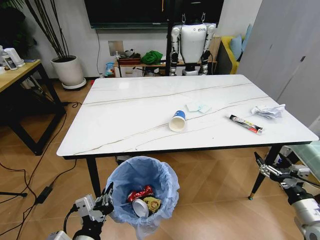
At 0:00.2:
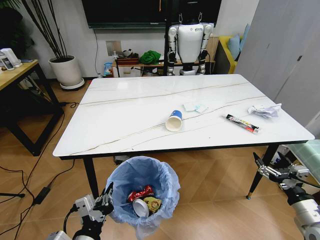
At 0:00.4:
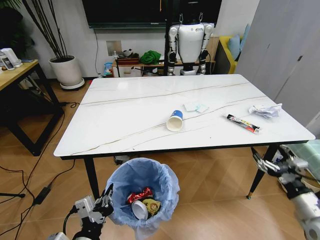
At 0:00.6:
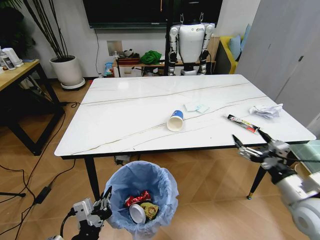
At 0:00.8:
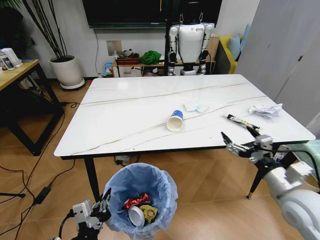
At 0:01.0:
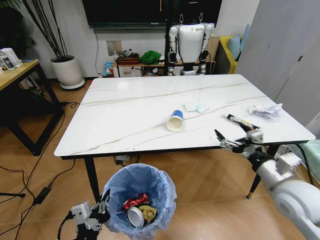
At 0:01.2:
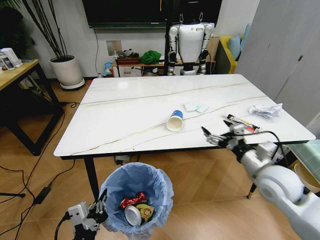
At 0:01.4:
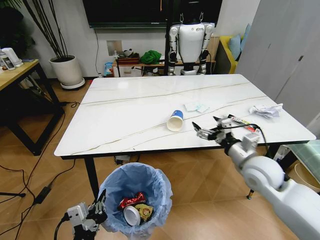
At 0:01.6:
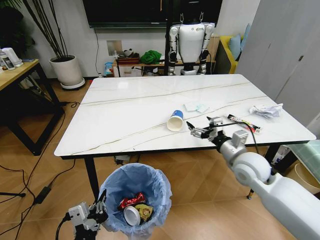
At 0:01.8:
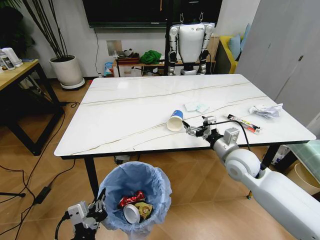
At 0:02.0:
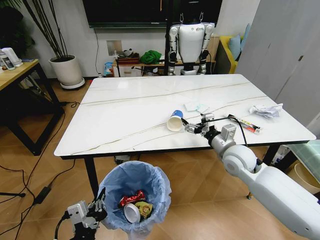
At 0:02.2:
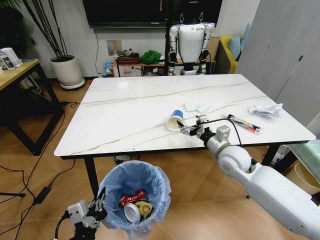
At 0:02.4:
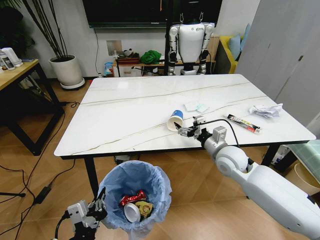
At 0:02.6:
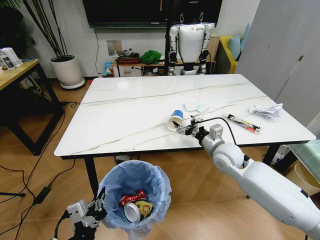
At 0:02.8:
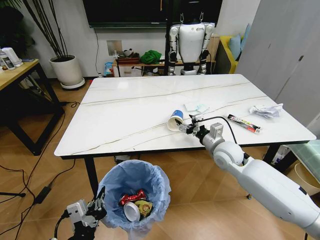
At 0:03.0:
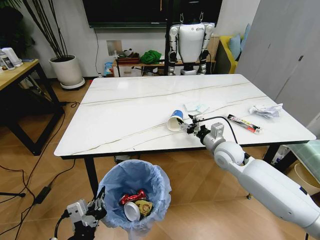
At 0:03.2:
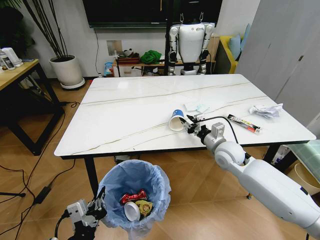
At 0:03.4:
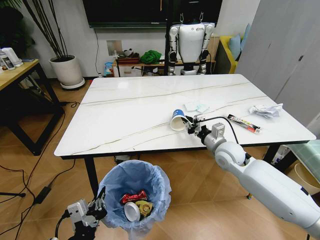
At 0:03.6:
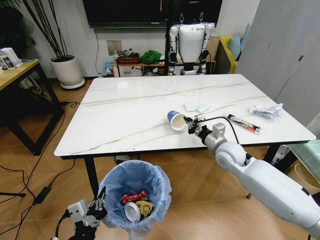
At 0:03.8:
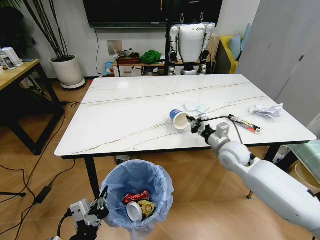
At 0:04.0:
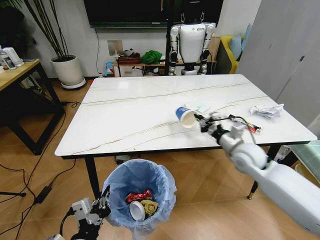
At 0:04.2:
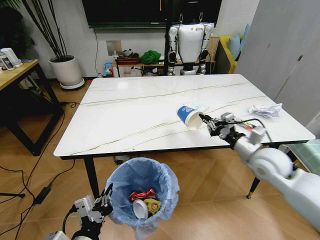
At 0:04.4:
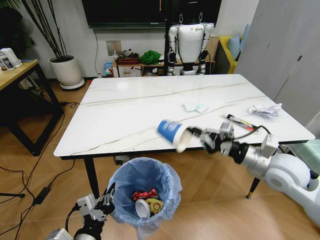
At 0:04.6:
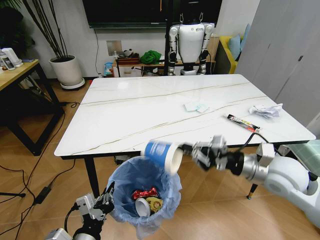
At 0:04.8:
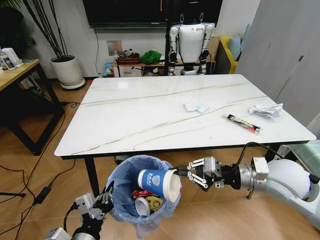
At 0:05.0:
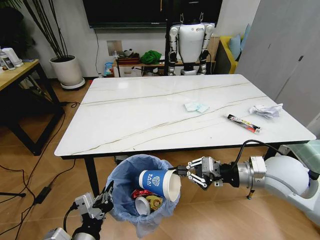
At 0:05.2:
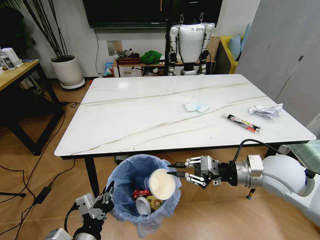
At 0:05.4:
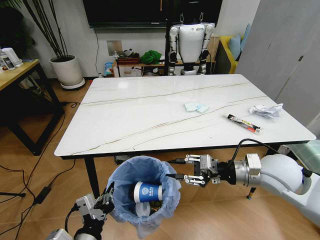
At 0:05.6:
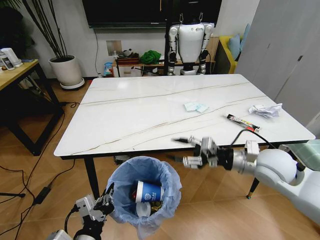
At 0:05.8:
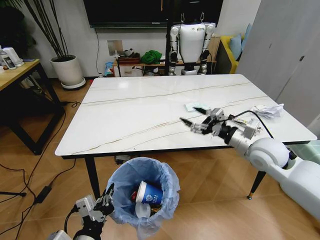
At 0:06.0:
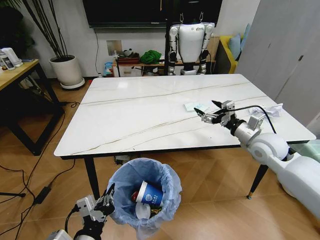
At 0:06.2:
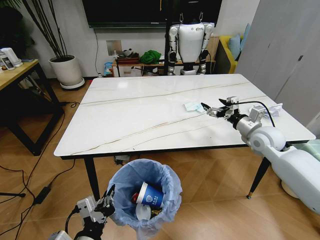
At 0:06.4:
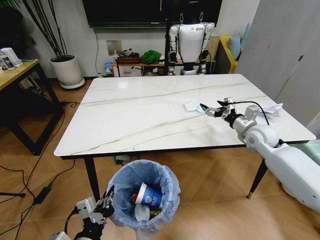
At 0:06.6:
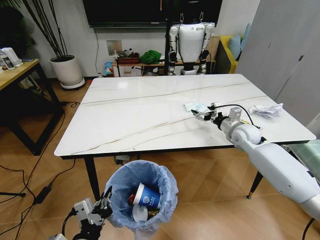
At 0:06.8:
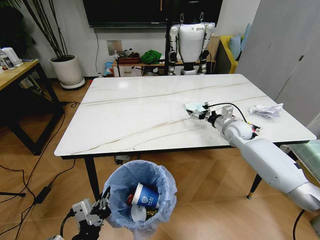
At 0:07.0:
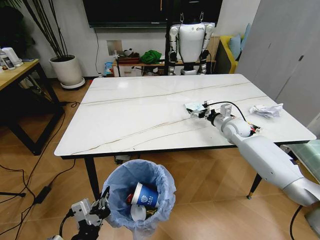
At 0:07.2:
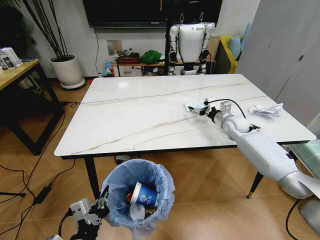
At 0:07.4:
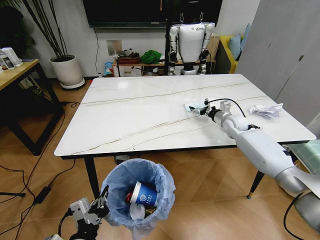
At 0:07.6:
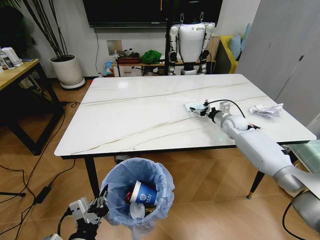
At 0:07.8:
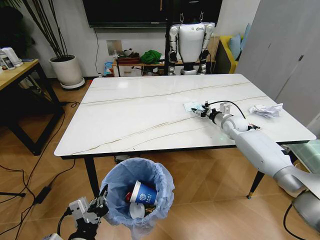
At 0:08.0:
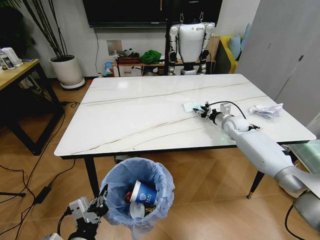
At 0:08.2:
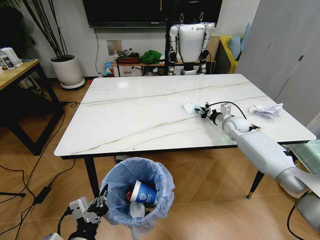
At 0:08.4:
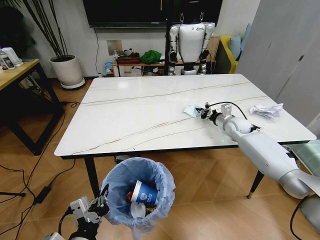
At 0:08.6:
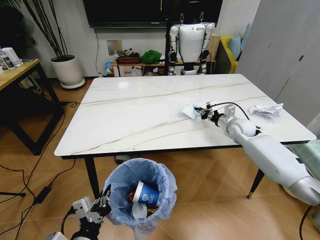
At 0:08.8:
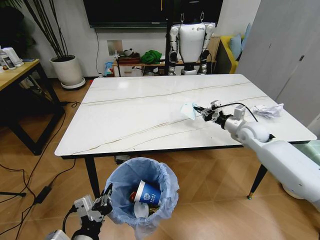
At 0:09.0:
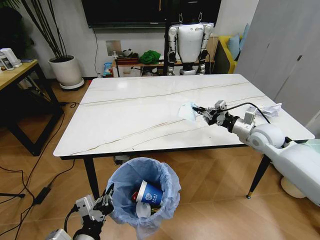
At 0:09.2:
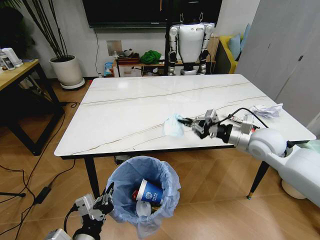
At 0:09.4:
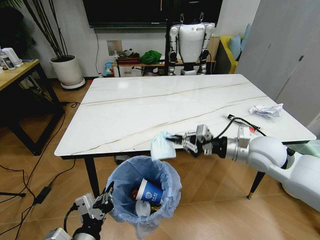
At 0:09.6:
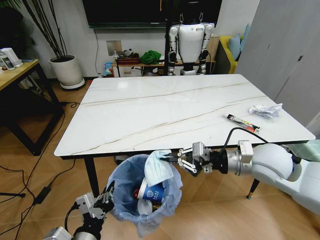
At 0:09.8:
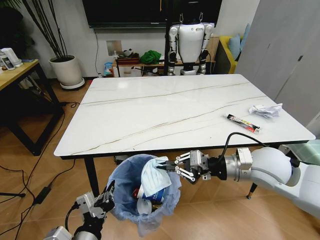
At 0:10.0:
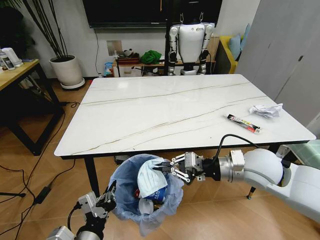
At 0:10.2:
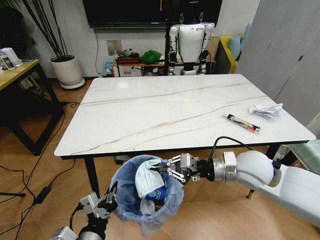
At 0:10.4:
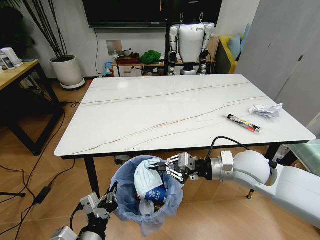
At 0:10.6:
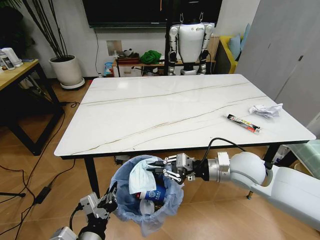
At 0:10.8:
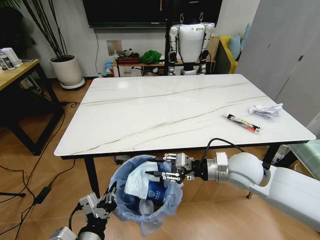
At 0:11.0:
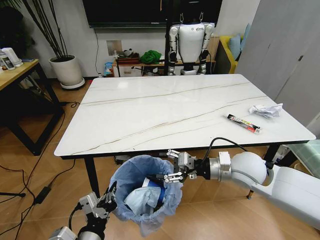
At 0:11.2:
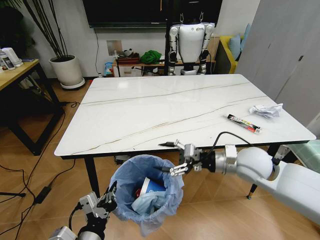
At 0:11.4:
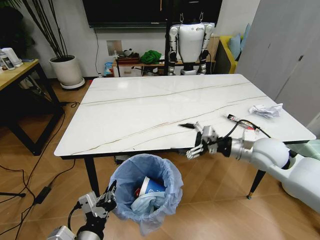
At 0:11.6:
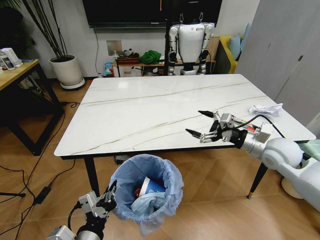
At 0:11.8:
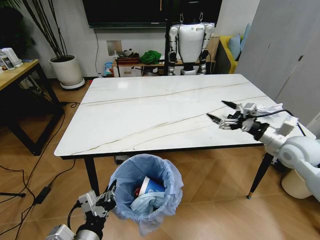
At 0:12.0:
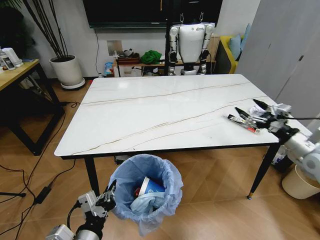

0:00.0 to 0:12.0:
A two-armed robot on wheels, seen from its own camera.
Task of the whole recording: Pick up the trash bin and place the trash from the table into it.
0:00.0 to 0:01.6: The right gripper goes approximately 25 cm forward, to the left and upward.
0:01.6 to 0:03.0: The right gripper moves forward, approximately 5 cm, and closes.
0:03.0 to 0:04.4: The right gripper is displaced backward, to the right and upward by about 15 cm, and closes its fingers.
0:04.4 to 0:06.0: The right gripper shifts about 10 cm forward, and opens up.
0:06.0 to 0:07.6: The right gripper goes approximately 20 cm forward and downward.
0:07.6 to 0:09.0: The right gripper moves backward and upward, some 15 cm, and closes up.
0:09.0 to 0:10.4: The right gripper heads to the left and backward, covering some 15 cm.
0:10.4 to 0:12.0: The right gripper goes roughly 25 cm to the right, and opens its fingers.

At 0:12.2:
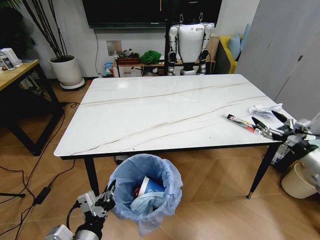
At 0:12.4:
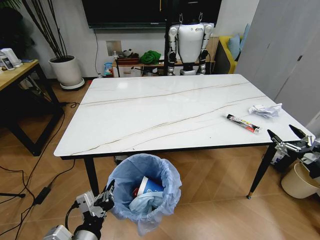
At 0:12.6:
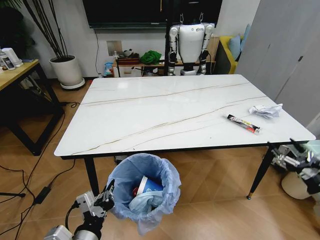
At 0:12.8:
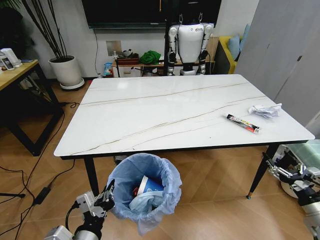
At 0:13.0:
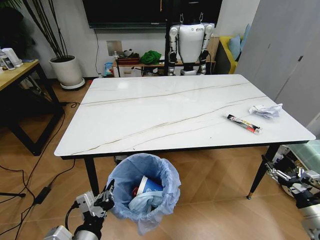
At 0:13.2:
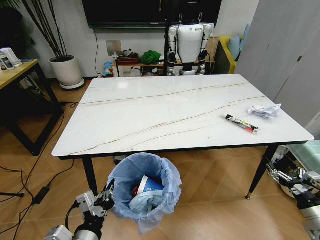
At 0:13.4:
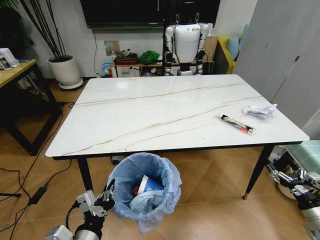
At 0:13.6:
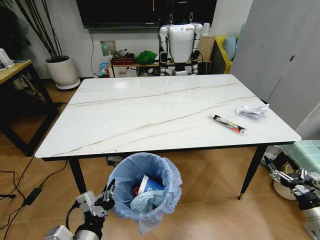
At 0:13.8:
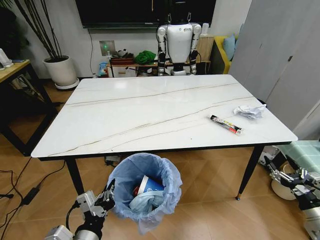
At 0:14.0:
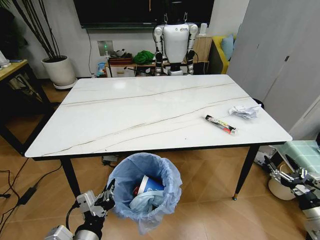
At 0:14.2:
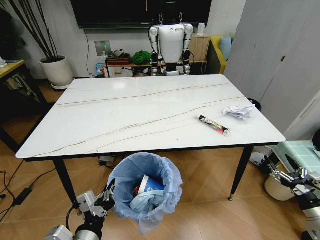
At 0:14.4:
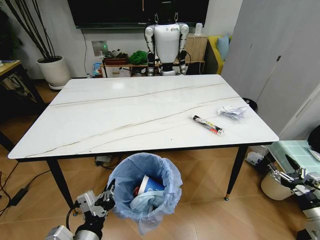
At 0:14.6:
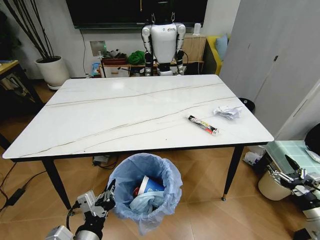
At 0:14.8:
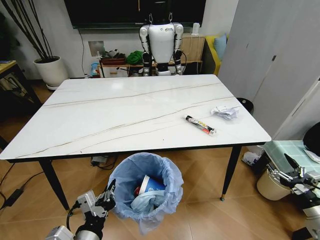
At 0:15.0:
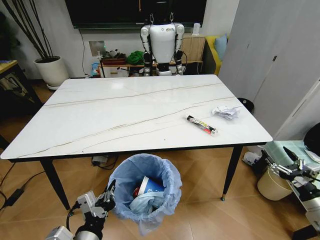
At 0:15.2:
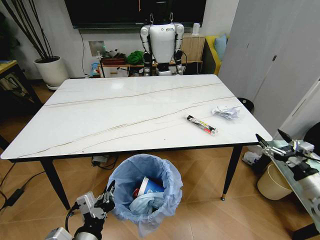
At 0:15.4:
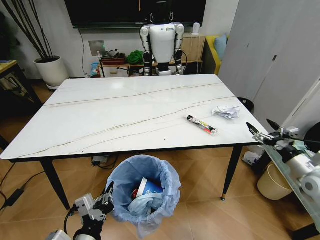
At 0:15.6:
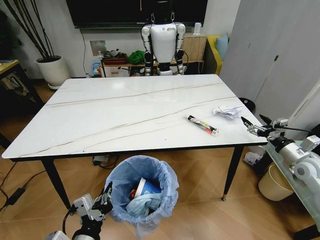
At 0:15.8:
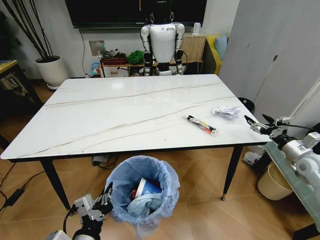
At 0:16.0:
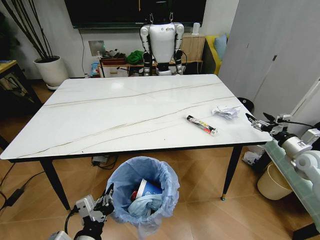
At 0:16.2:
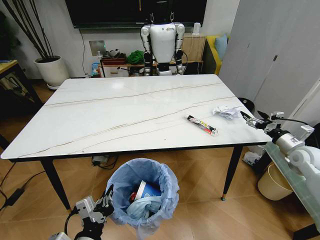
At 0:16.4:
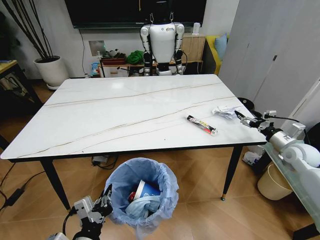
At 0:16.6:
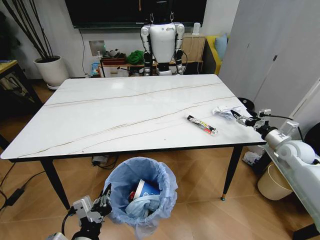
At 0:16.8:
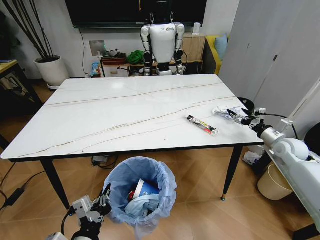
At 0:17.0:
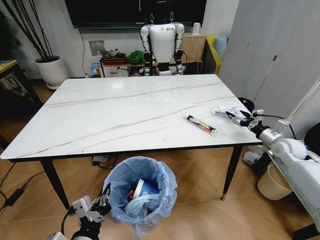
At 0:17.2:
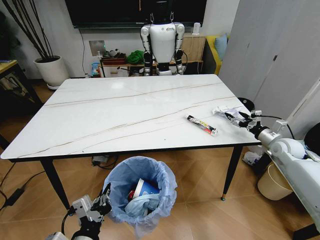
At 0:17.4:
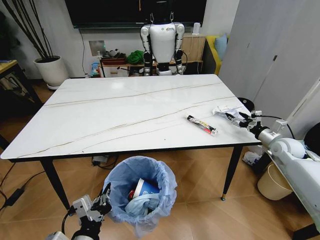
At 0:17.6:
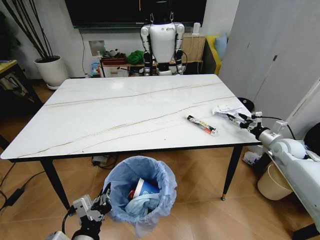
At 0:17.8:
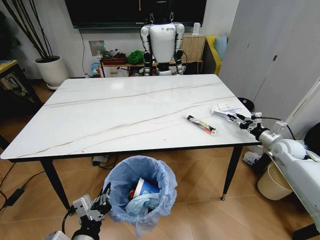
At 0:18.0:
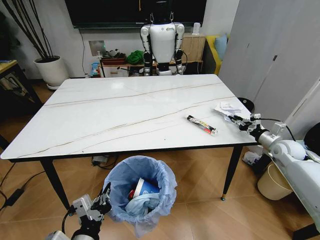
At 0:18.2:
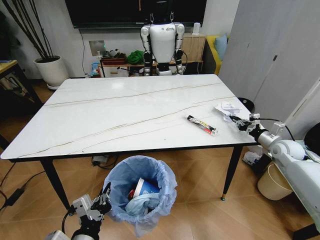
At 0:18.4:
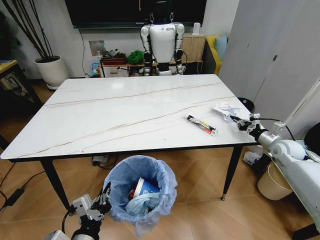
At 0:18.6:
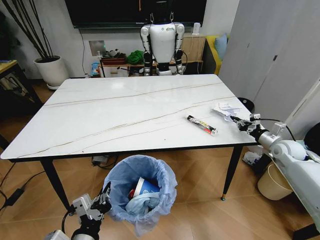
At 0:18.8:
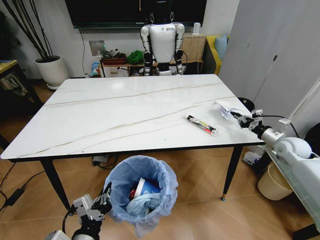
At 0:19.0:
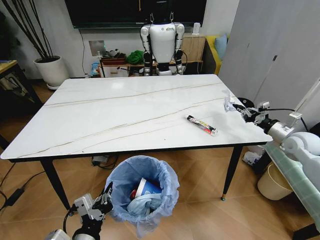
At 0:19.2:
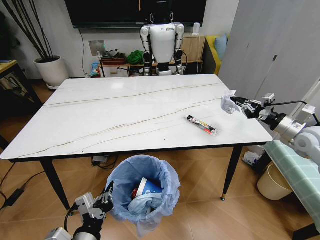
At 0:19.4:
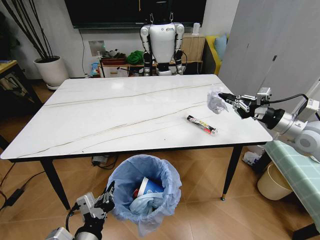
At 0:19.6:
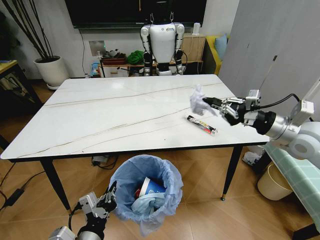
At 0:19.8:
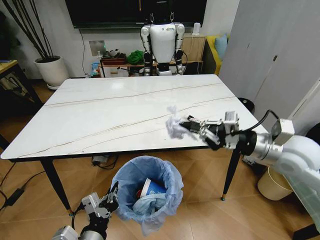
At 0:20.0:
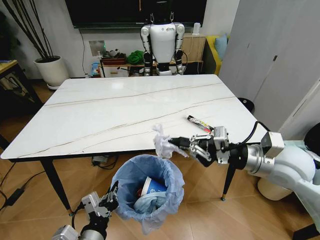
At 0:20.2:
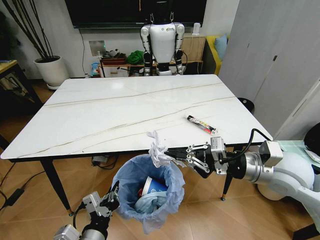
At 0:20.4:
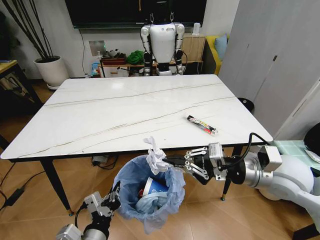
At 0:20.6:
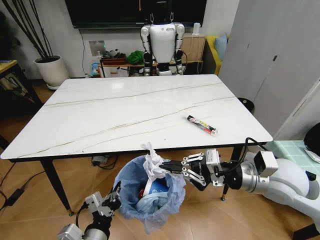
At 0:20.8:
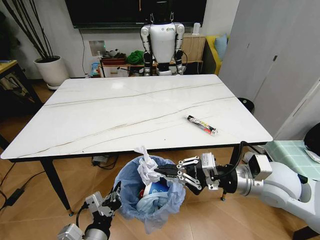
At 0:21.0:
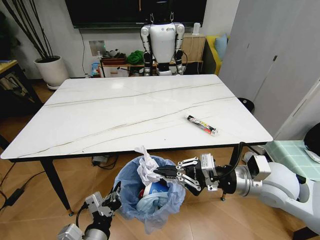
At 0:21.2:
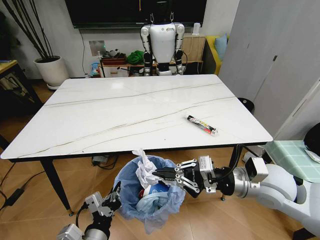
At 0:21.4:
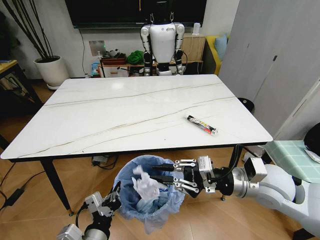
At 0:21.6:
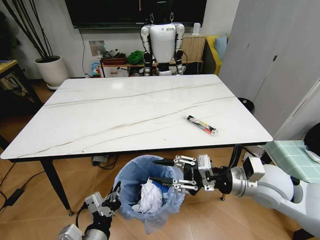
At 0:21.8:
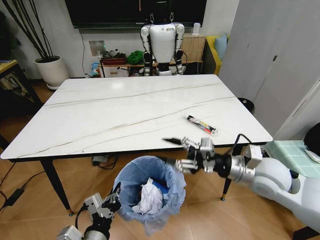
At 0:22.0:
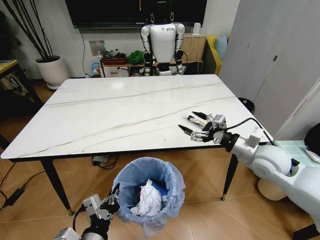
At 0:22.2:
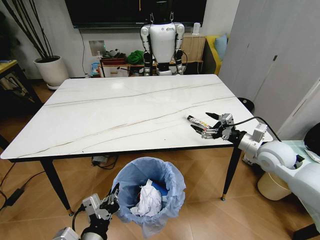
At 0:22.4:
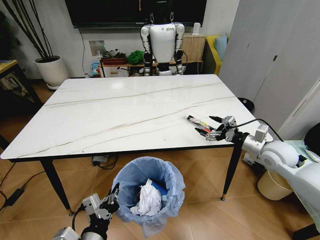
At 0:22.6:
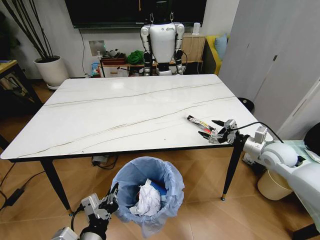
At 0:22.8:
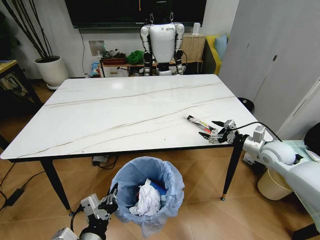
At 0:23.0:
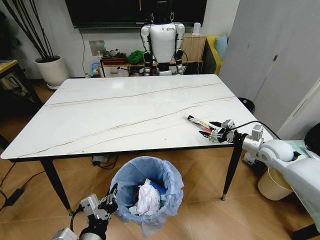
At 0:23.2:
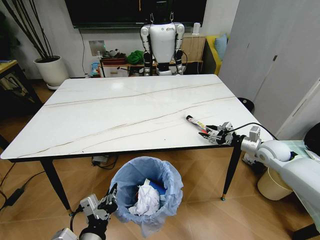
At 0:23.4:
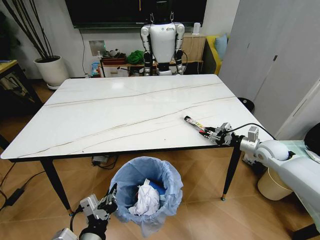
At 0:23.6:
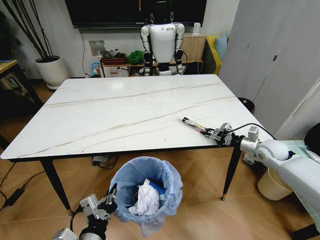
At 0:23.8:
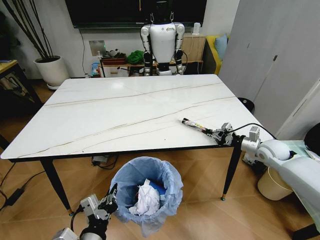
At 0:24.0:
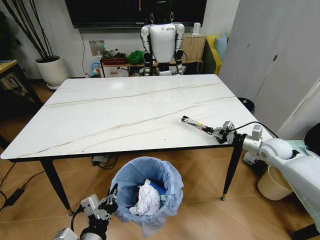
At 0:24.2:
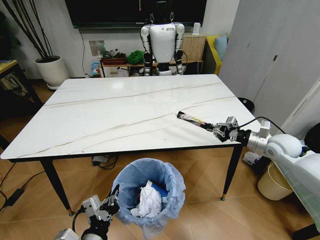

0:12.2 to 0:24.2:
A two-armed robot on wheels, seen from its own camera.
Task of the whole recording: Pick up the trash bin and place the trash from the table into it.
0:12.2 to 0:13.8: The right gripper heads backward and downward, covering approximately 15 cm.
0:13.8 to 0:15.2: The right gripper travels forward and upward by about 10 cm.
0:15.2 to 0:16.6: The right gripper heads forward, covering about 20 cm.
0:16.6 to 0:18.2: The right gripper closes up.
0:18.2 to 0:19.8: The right gripper travels to the left, upward and backward by about 25 cm.
0:19.8 to 0:21.2: The right gripper moves to the left and downward, approximately 10 cm.
0:21.2 to 0:22.6: The right gripper shifts some 20 cm to the right, forward and downward, and opens up.
0:22.6 to 0:24.2: The right gripper closes.